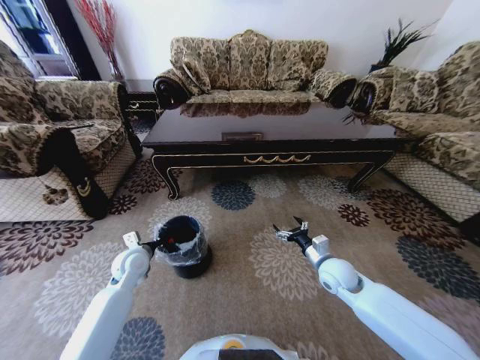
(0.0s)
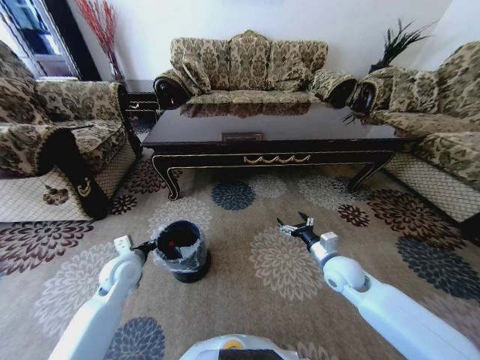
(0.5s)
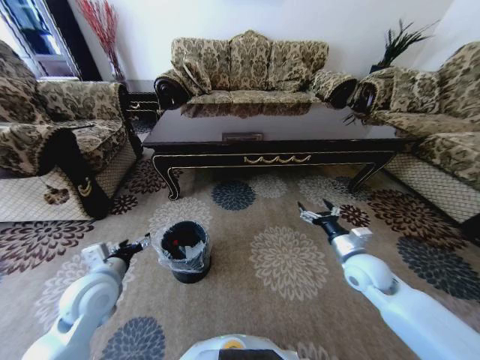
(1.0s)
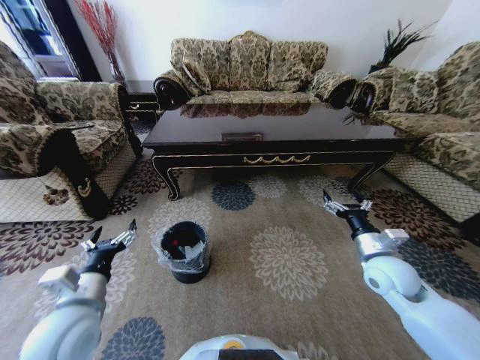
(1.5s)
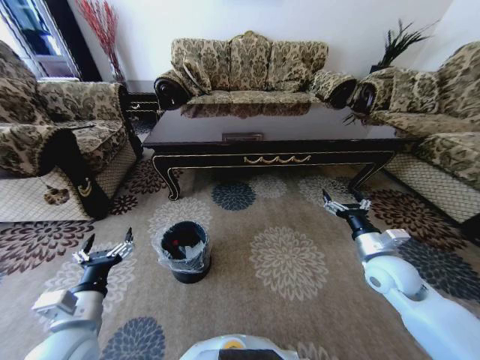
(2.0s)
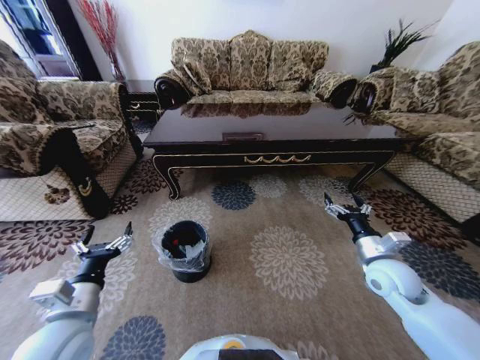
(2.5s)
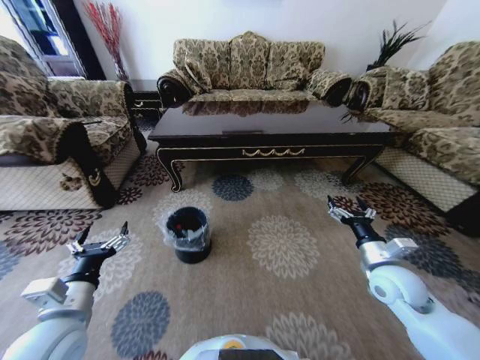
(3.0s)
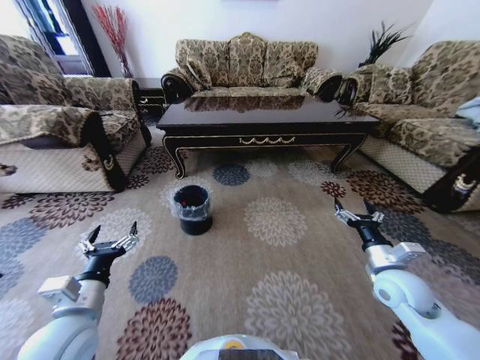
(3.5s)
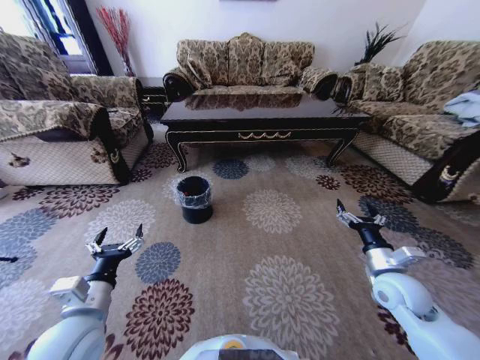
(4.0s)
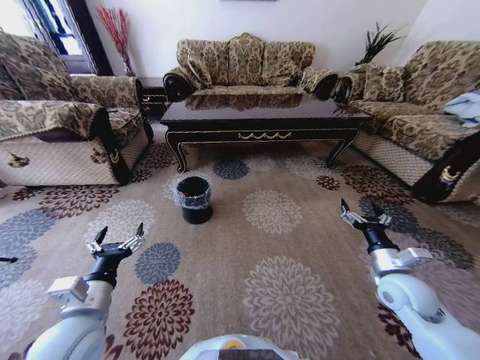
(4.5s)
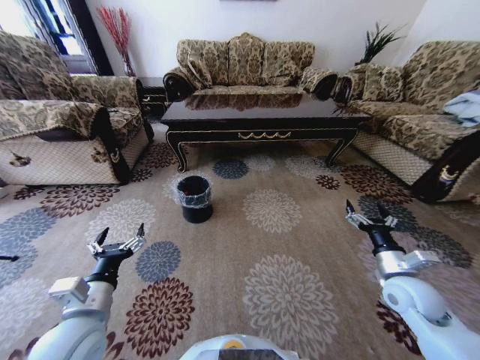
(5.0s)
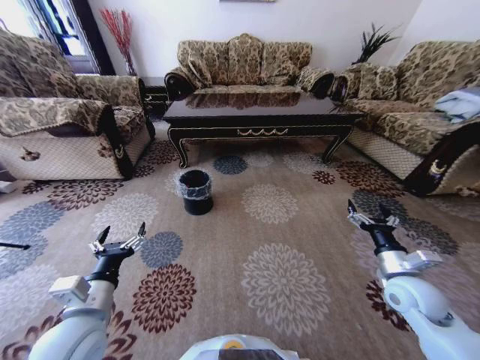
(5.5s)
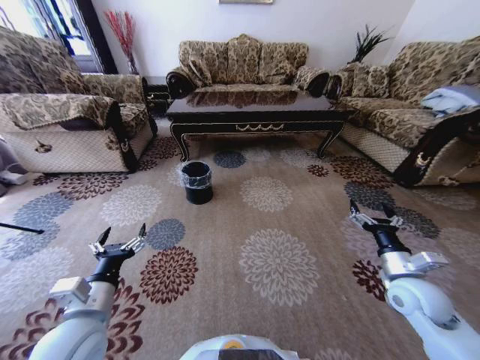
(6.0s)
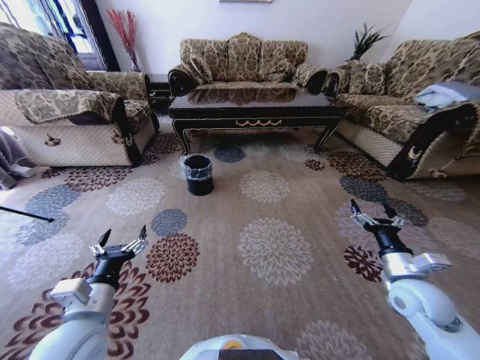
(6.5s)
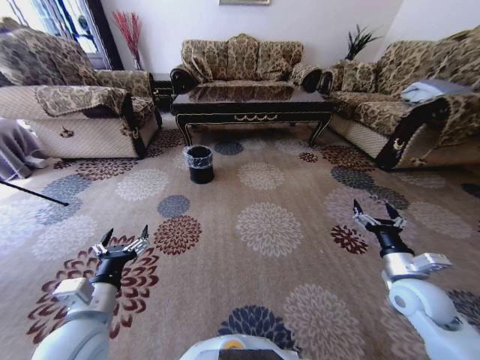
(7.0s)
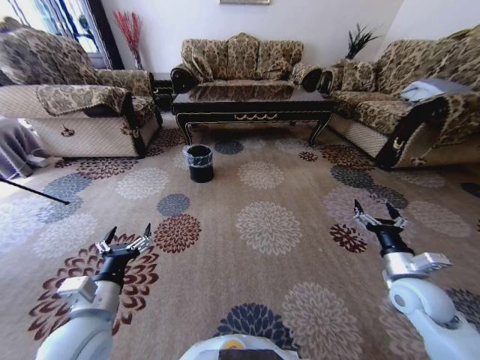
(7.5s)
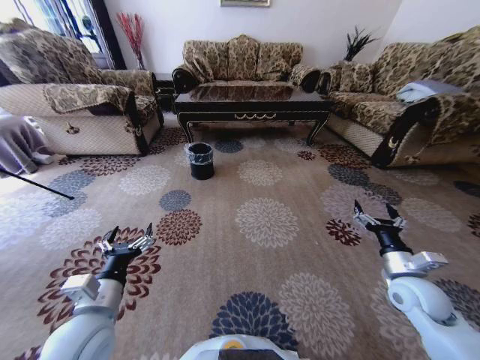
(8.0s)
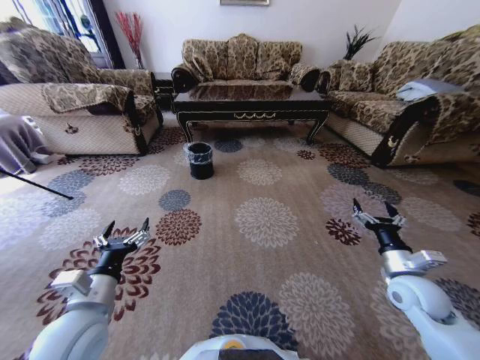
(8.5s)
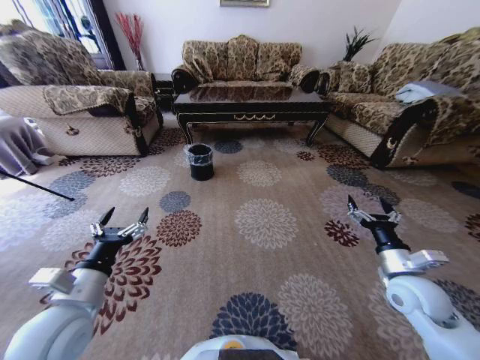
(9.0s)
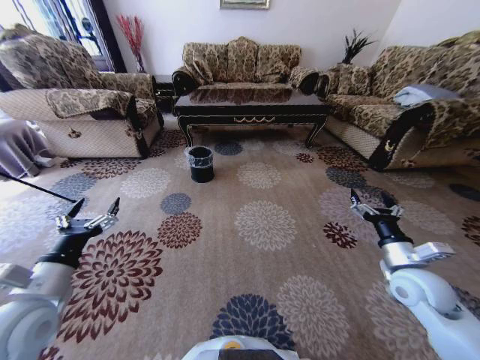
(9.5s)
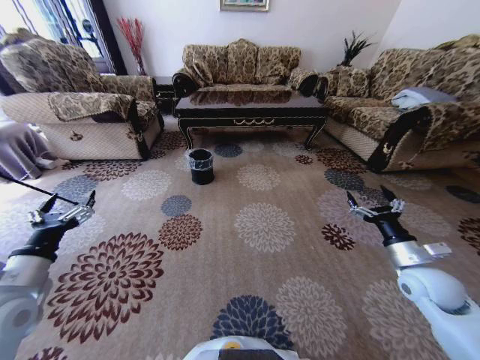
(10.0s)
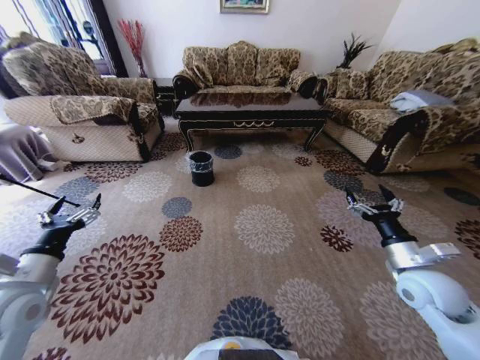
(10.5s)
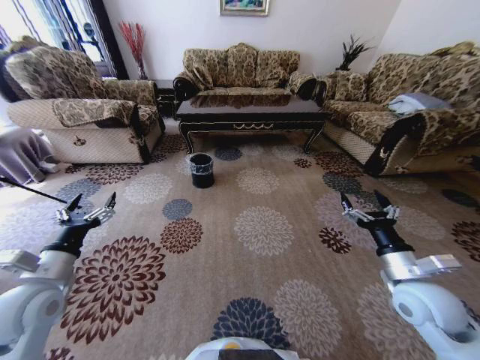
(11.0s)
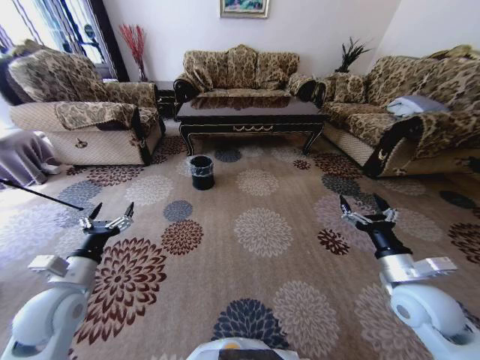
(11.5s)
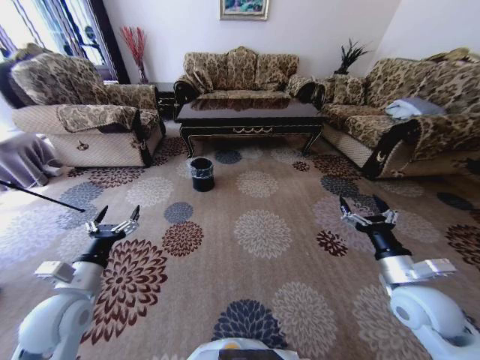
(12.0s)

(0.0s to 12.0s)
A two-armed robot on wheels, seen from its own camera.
Task of the whole recording: Move to the front of the table and pick up the trash from the floor, then place it into the trash bin.
0.0s - 2.0s: The right gripper is displaced upward and to the right by approximately 10 cm; the left gripper goes roughly 20 cm backward, and opens.
8.0s - 10.0s: The left gripper is displaced to the left by about 15 cm.
10.0s - 12.0s: The right gripper is displaced to the left by about 5 cm. Meanwhile the left gripper heads to the right and downward, covering approximately 10 cm.

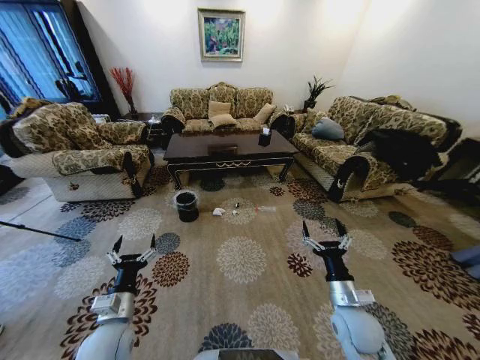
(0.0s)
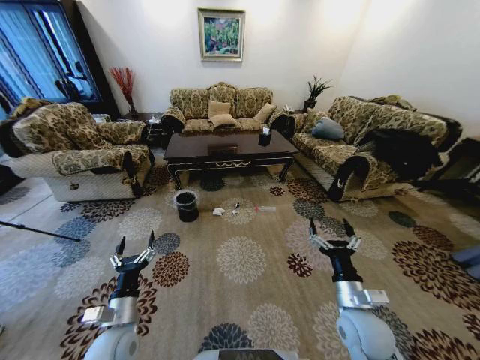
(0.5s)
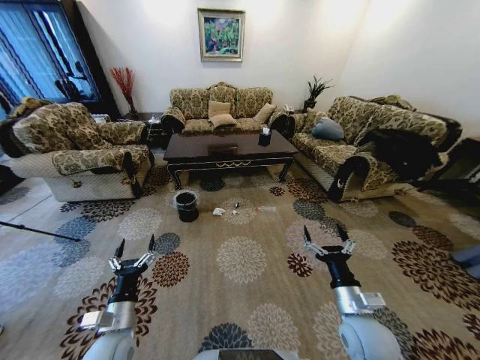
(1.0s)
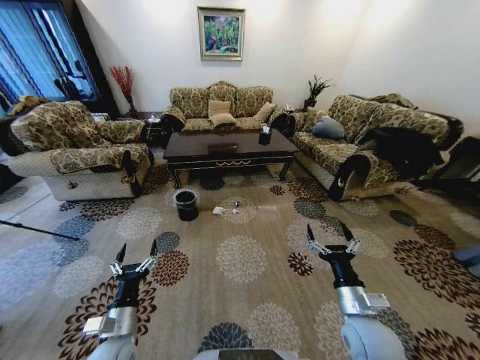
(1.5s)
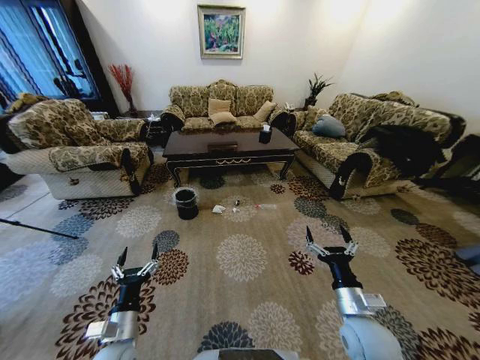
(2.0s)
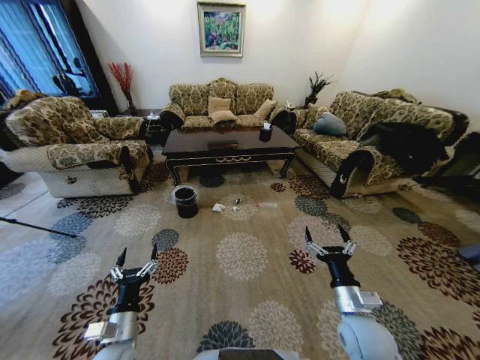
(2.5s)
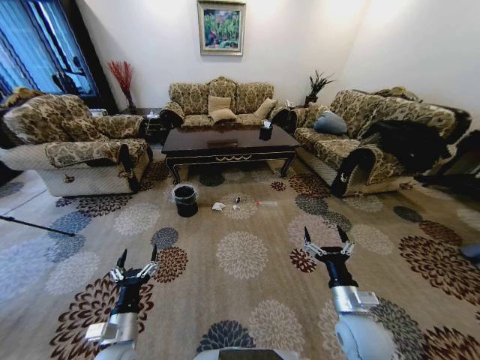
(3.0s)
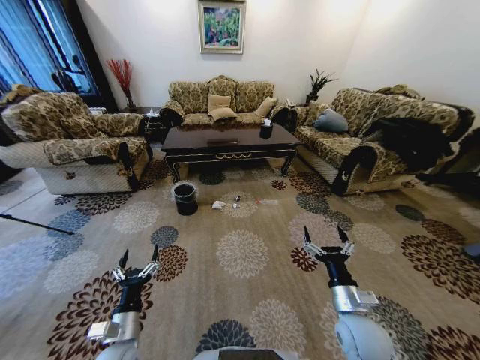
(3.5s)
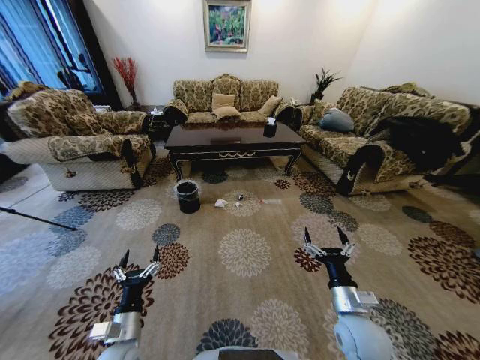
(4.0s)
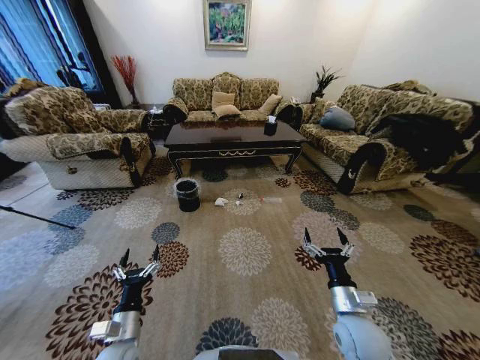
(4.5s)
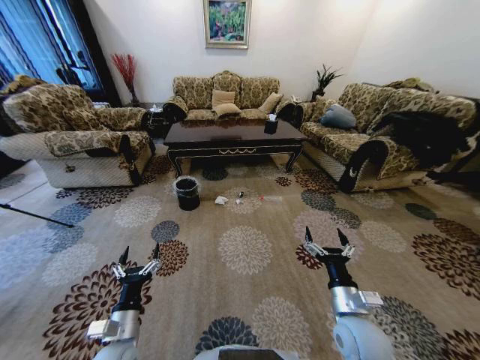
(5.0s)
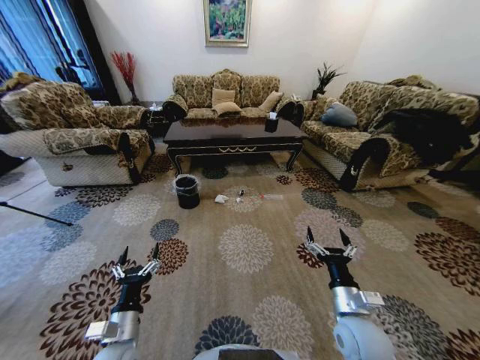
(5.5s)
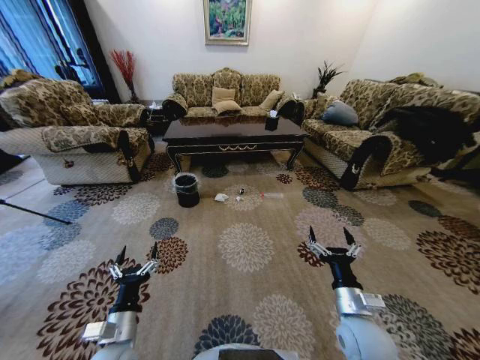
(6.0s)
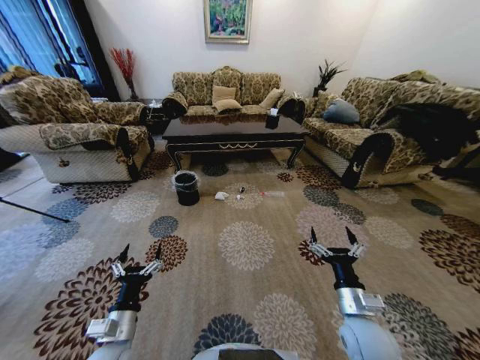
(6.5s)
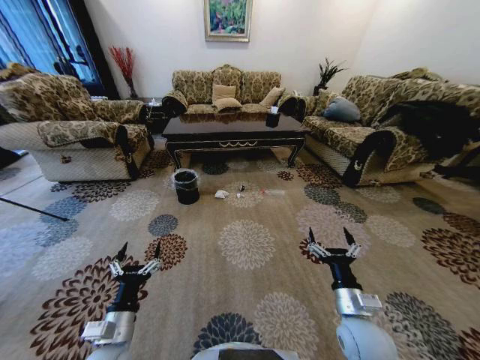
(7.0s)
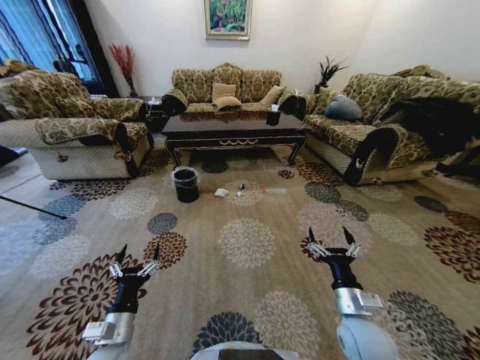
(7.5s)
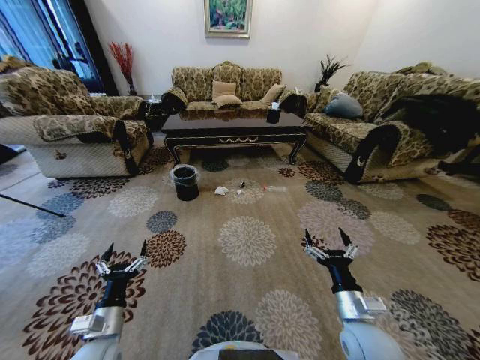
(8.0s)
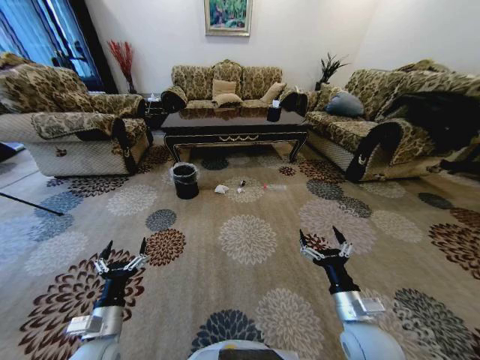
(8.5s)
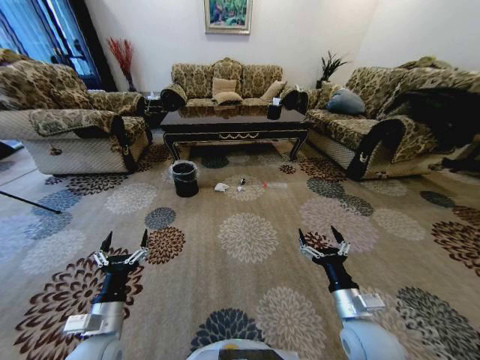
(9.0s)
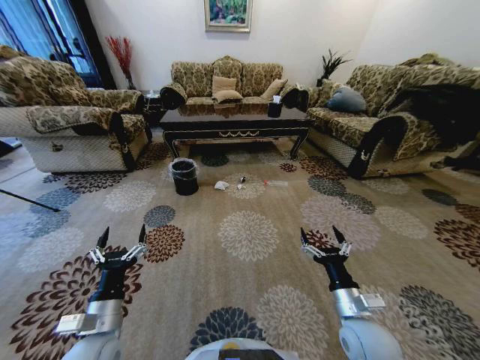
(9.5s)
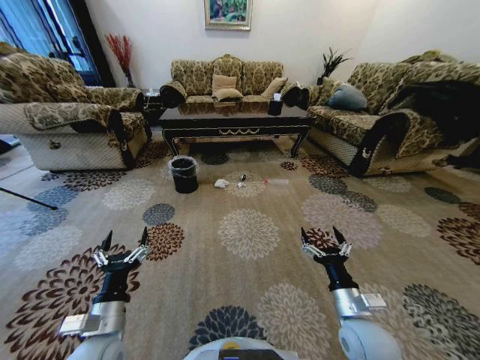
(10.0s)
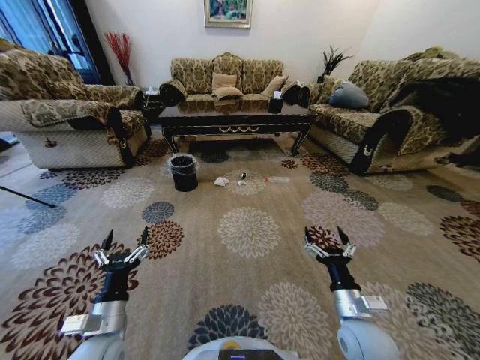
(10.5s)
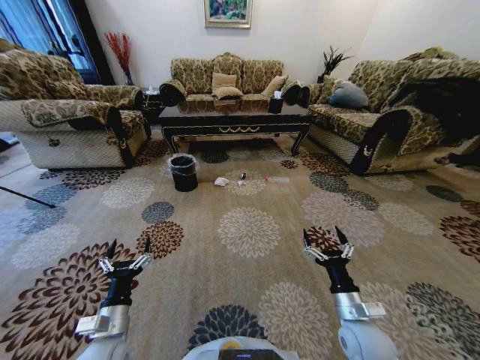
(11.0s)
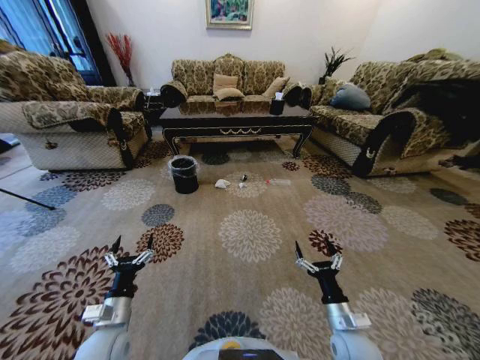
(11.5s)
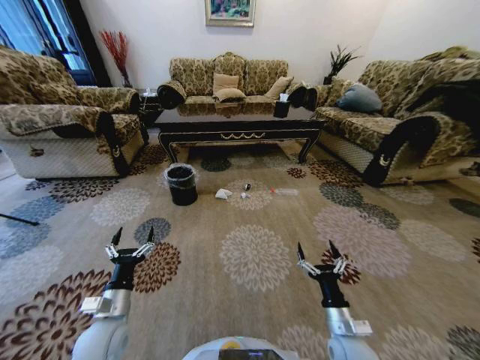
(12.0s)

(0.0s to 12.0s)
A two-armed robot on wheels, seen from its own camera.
Task of the whole recording: Move to the front of the table and pick up the trash from the floor, then place it into the trash bin.
8.0s - 10.0s: The left gripper ends up approximately 5 cm from where it was.
10.0s - 12.0s: The left gripper ends up approximately 5 cm from where it was. The right gripper moves downward, some 10 cm.

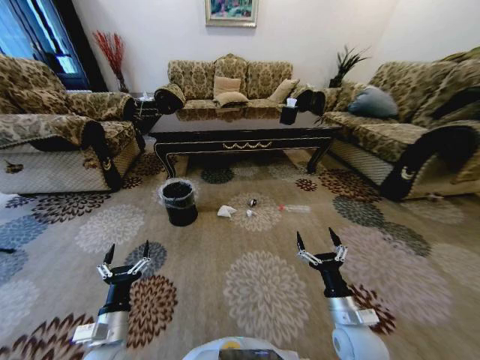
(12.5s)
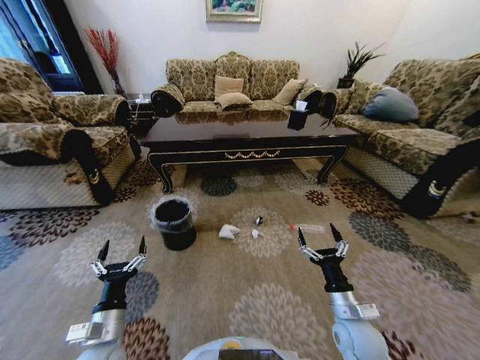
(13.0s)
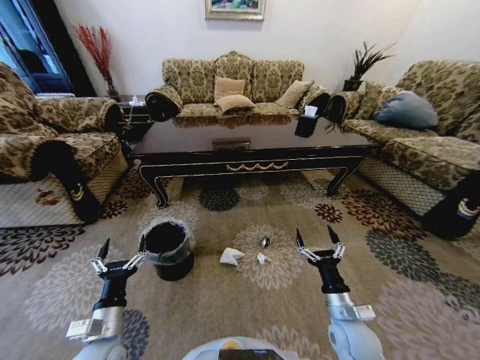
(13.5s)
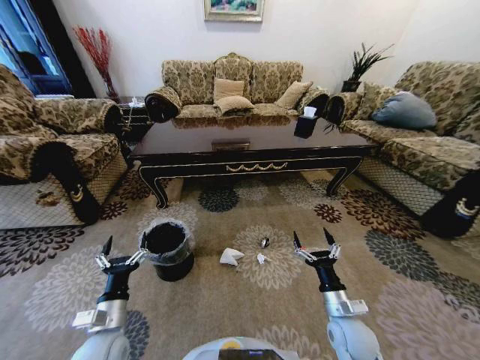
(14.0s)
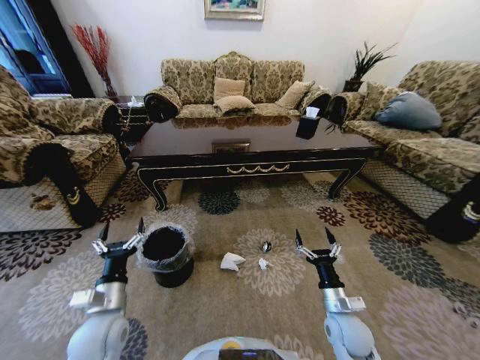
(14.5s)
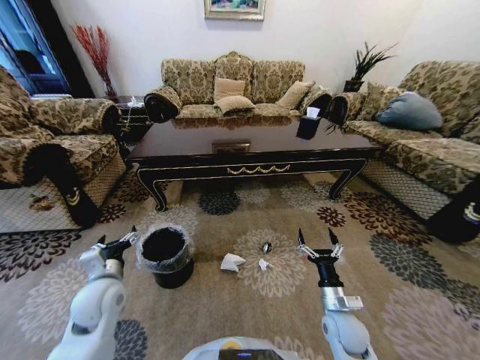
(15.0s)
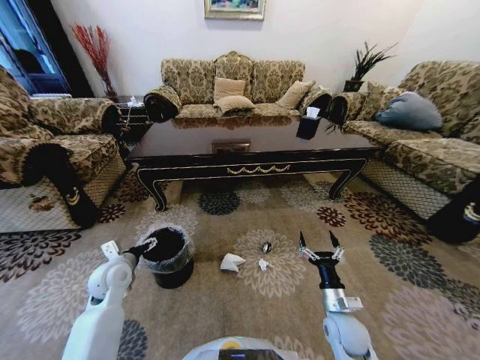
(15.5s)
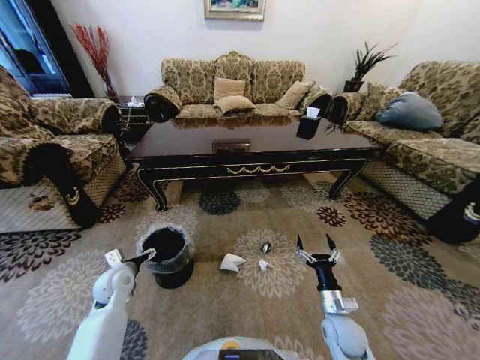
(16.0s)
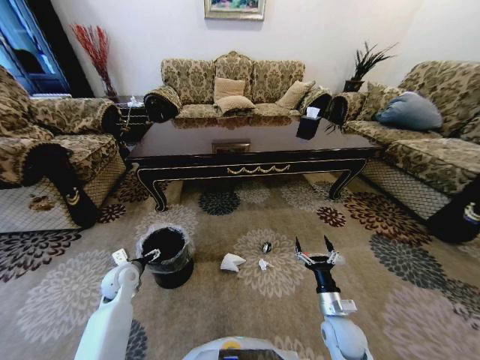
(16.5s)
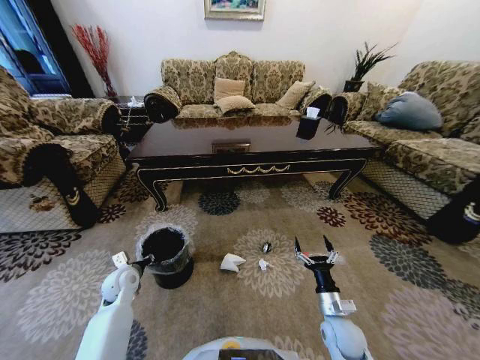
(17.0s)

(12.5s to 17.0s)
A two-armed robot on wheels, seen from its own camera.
Task of the whole recording: Move to the front of the table and pick up the trash from the floor, then place it into the trash bin.
12.5s - 14.5s: The left gripper shifts roughly 5 cm forward.
14.5s - 17.0s: The left gripper heads forward, downward and to the left, covering about 15 cm, and closes its fingers.
